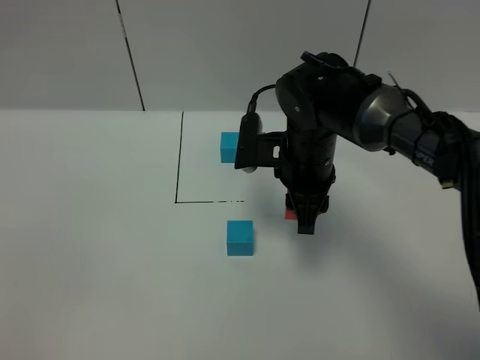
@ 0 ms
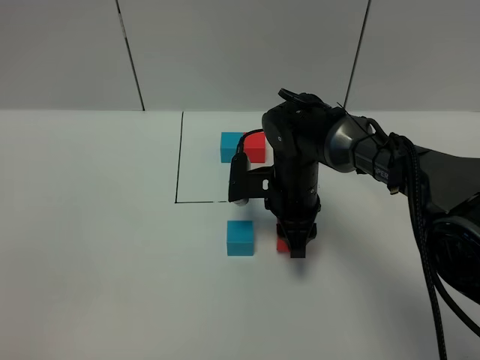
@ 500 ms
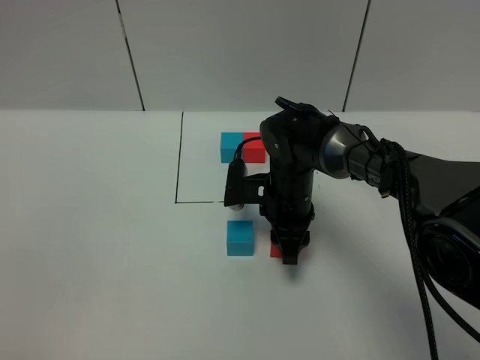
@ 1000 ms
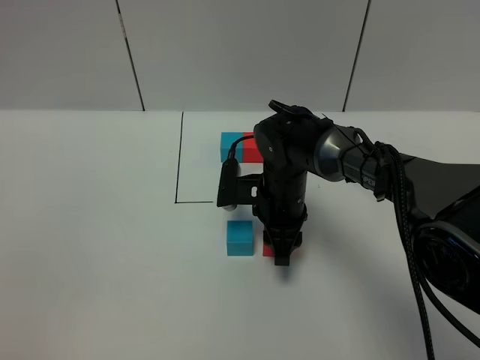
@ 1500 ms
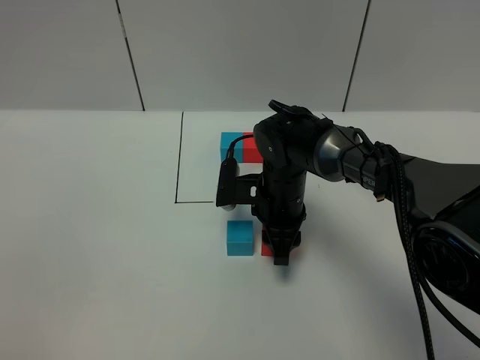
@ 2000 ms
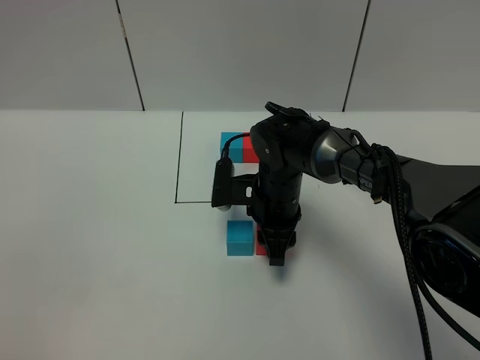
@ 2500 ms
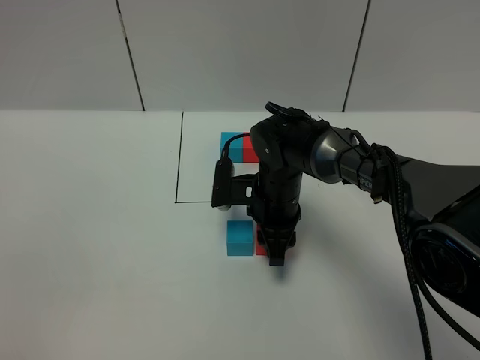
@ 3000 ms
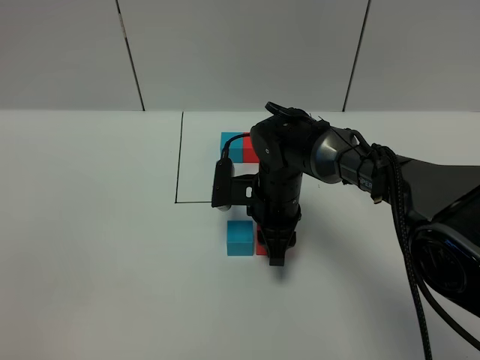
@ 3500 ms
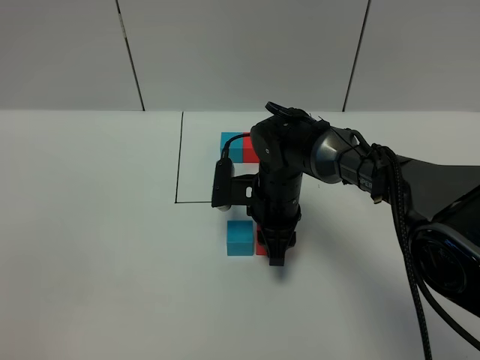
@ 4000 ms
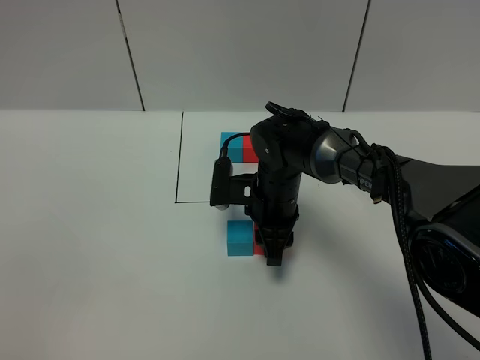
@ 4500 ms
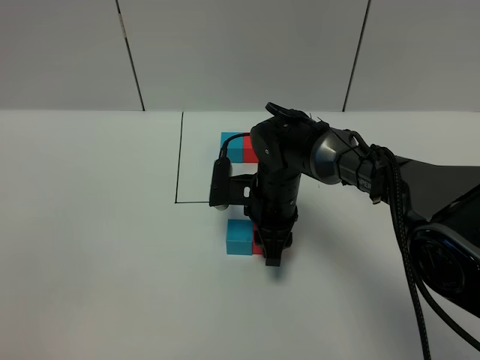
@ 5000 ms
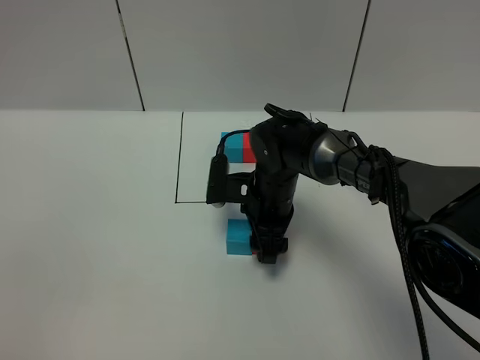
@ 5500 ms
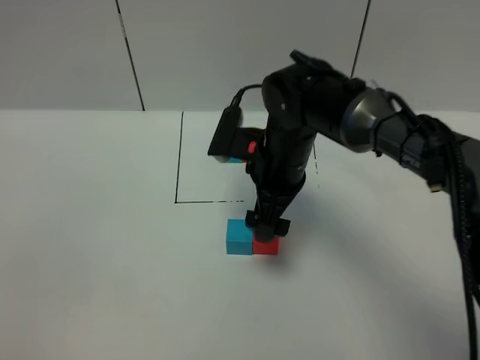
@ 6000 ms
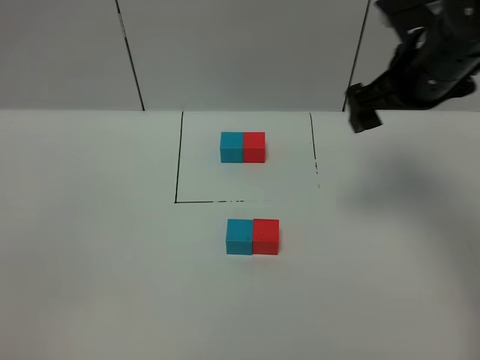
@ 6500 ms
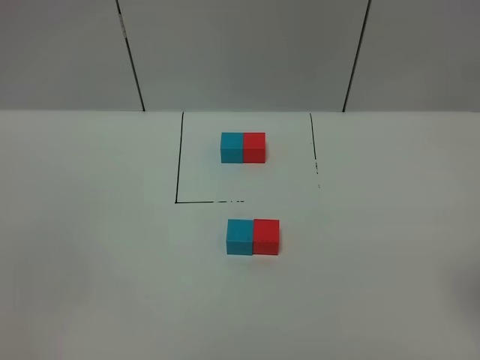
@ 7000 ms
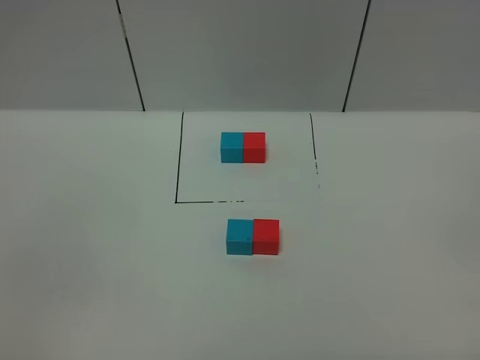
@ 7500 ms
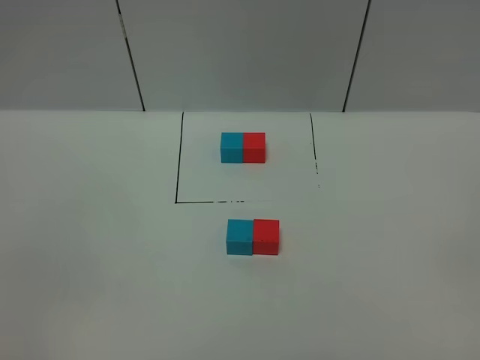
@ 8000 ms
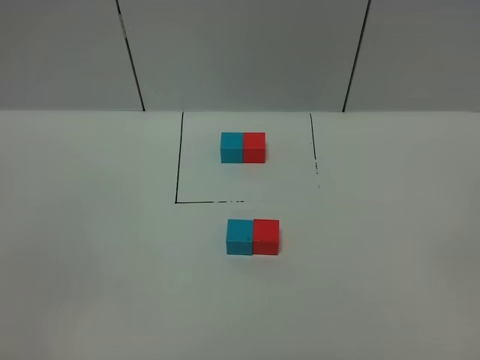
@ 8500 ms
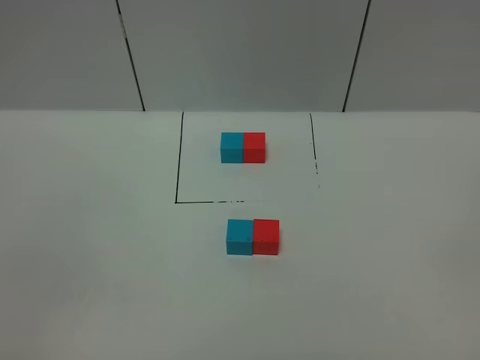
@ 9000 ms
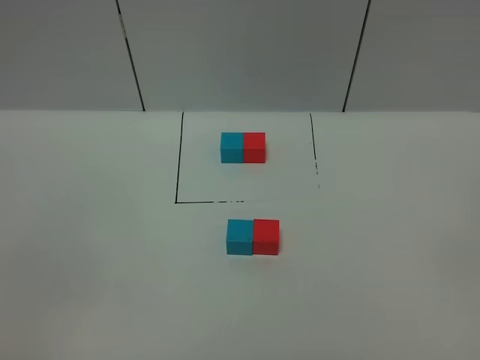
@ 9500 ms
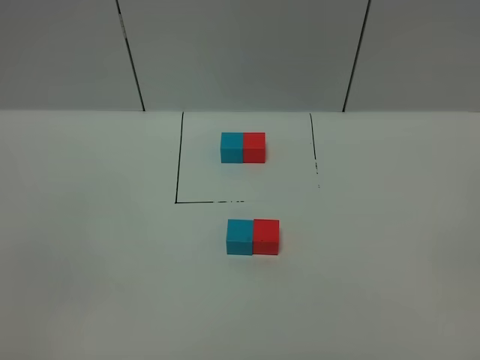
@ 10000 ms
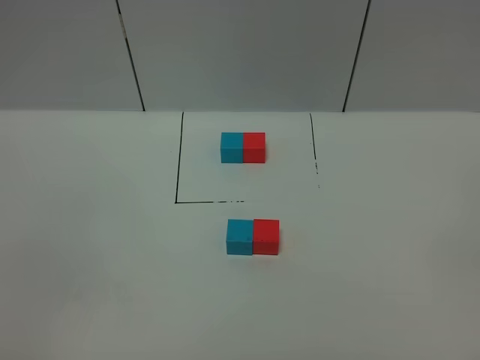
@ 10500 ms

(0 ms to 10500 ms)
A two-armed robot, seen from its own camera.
Task of the whole recording: According to the building block template in front, assemble the scattered blocks together.
Step, 0 ms - 6000 ms: Put the red cube on the right of the orange cube.
0 ms - 2000 ms: The right gripper heads downward, covering roughly 10 cm.
2000 ms - 4000 ms: The two grippers keep their place.
4000 ms - 6500 ms: The right gripper travels upward and to the right by roughly 25 cm, and opens.
6500 ms - 8500 ms: The right gripper moves backward, approximately 40 cm.
8500 ms - 10500 ms: Neither gripper changes place.
